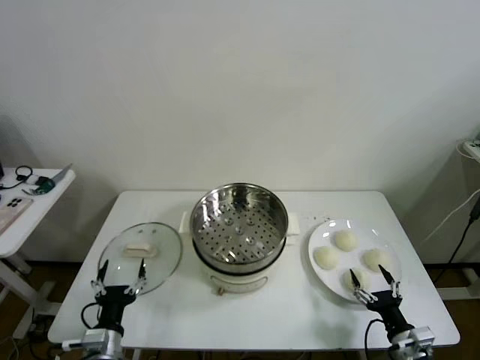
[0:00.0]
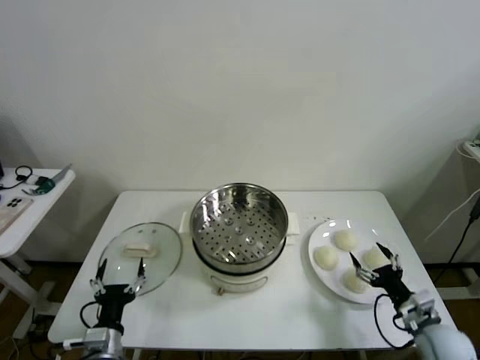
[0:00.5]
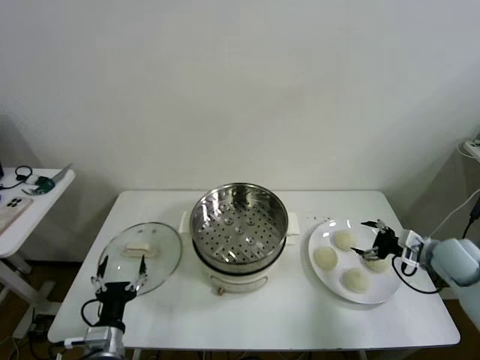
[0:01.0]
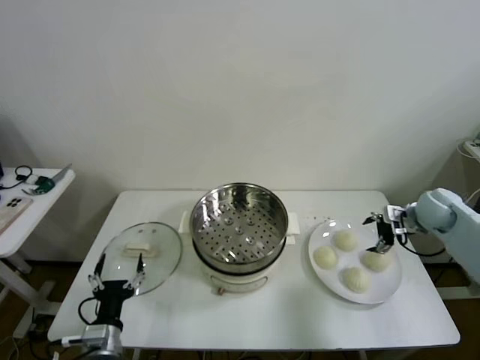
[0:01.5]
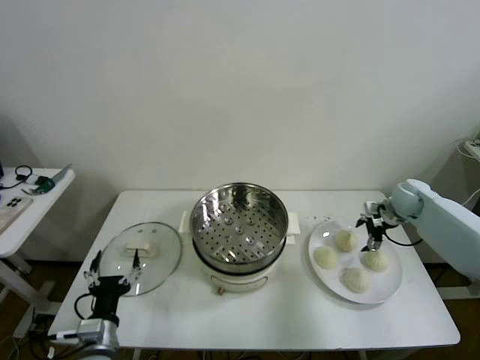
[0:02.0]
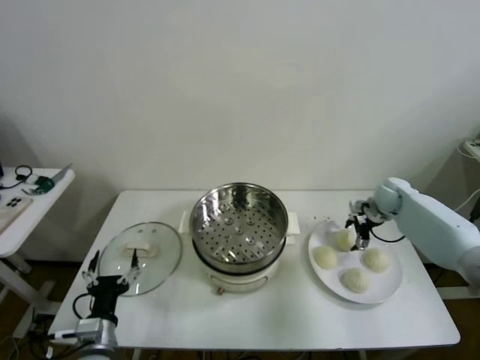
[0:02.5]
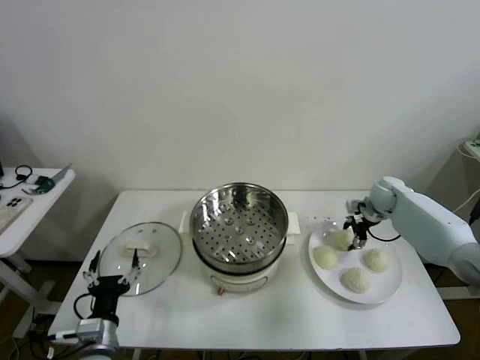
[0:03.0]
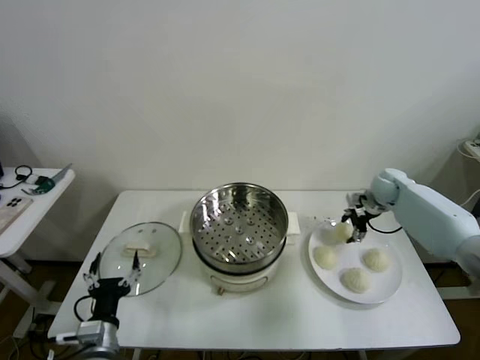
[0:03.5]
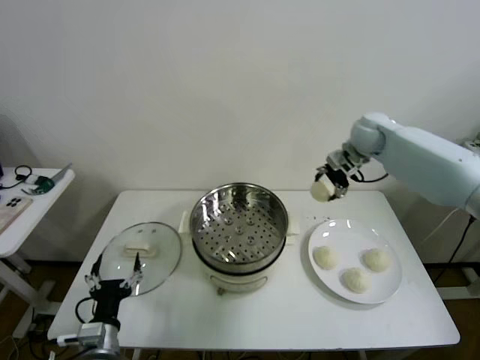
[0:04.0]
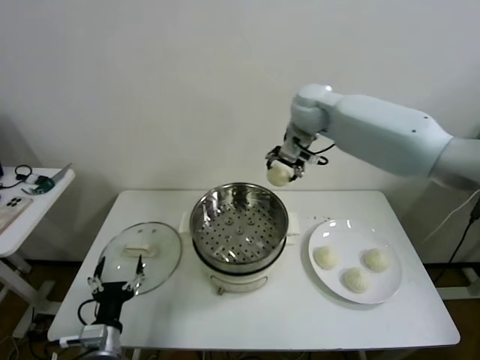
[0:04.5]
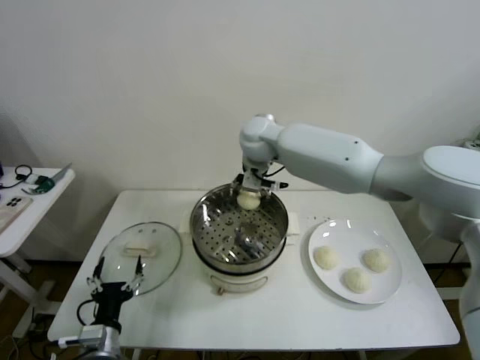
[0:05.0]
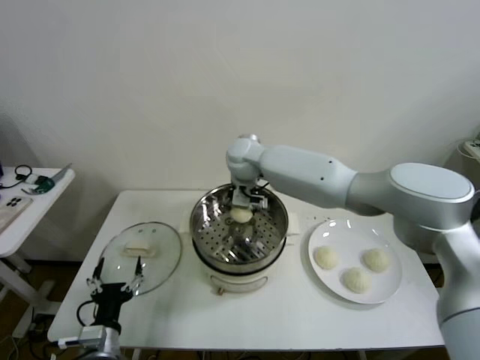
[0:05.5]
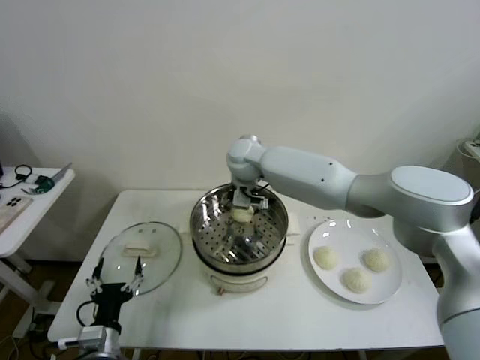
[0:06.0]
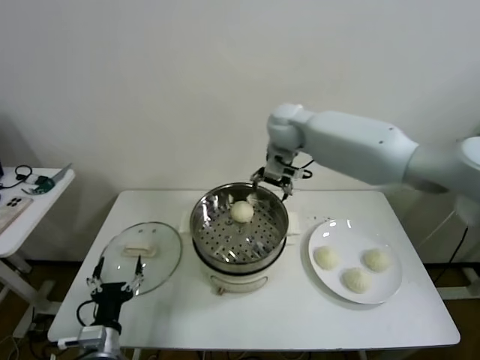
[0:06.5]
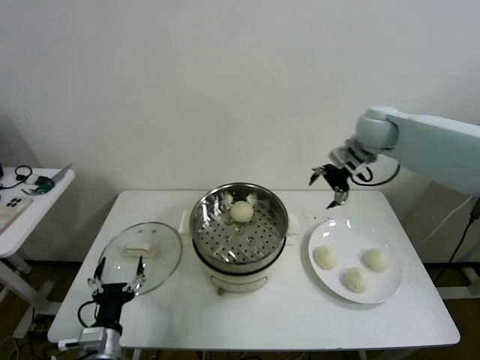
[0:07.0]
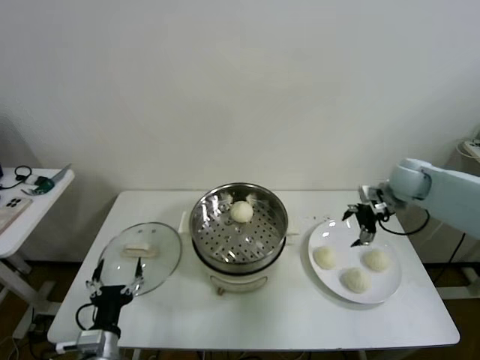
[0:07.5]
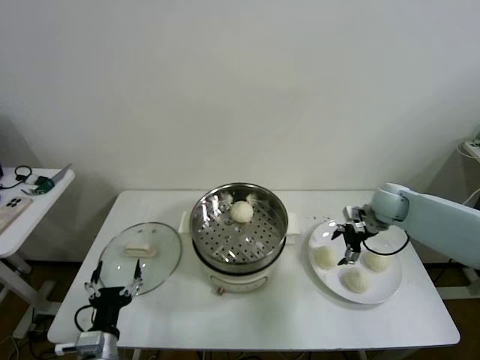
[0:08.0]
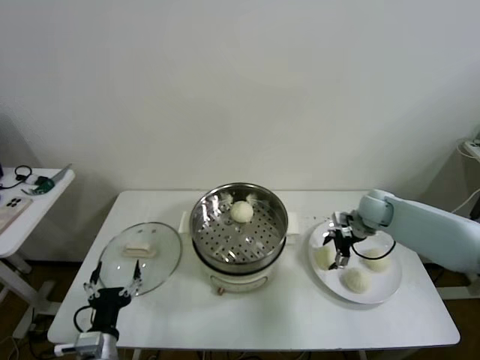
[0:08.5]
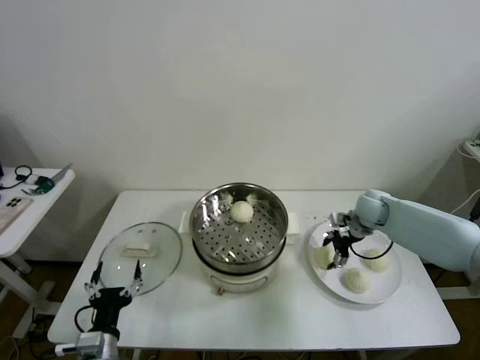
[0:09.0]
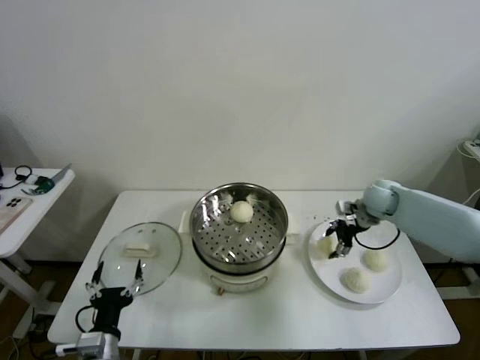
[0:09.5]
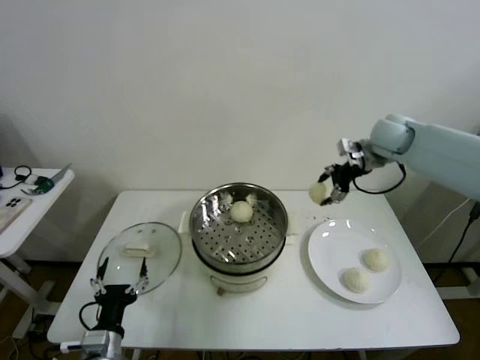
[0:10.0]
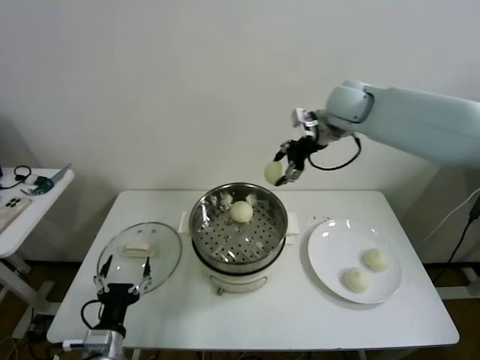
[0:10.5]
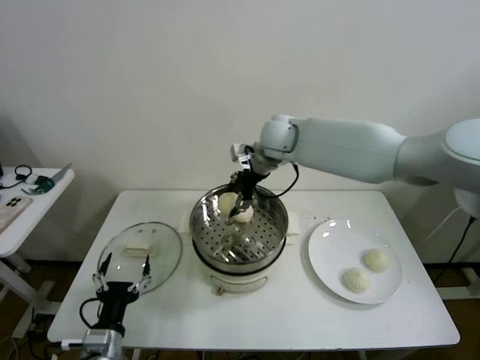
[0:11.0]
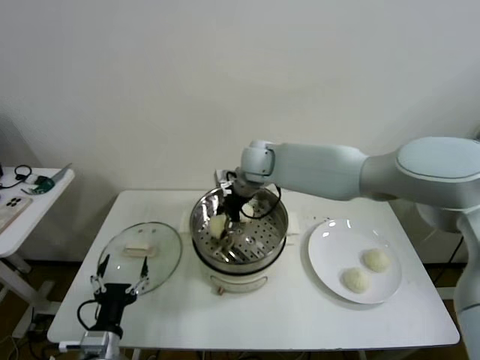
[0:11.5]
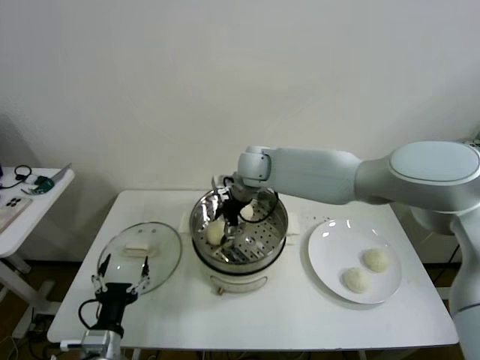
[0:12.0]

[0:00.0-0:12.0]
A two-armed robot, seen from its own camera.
Task of the whole recording: take steamed baozi put them in steamer then cover it.
Step, 0:00.0 to 0:03.0: Grasp the baozi in the plate with right gripper.
Step, 0:03.5 to 0:05.5: Place the baozi on the steamer with right gripper.
Step, 0:06.0 to 0:09.0: Grasp the baozi in the plate with right gripper.
0:02.0 to 0:04.0: The right gripper is displaced upward and to the left by approximately 25 cm, and closes.
0:04.0 to 0:06.0: The right gripper is displaced to the left by some 25 cm, and opens.
0:06.0 to 0:08.0: The right gripper moves to the right, some 35 cm.
0:08.0 to 0:10.0: The right gripper heads upward, covering about 20 cm, and closes its fingers.
0:10.0 to 0:12.0: The right gripper shifts roughly 30 cm to the left, and opens up.

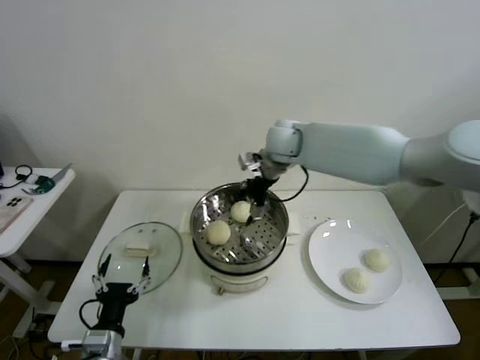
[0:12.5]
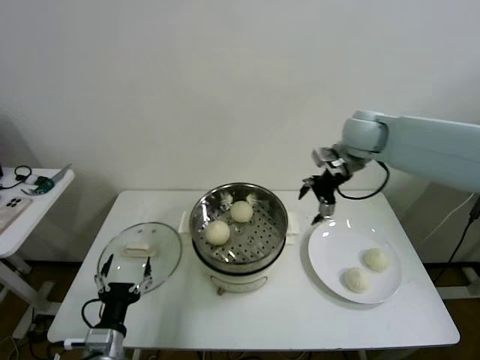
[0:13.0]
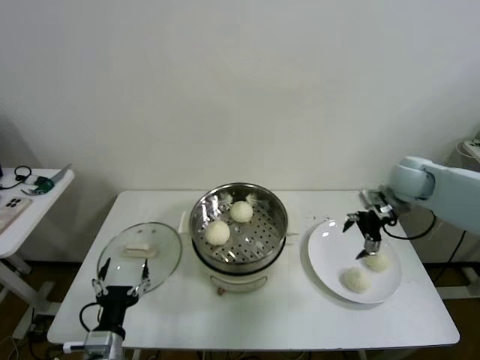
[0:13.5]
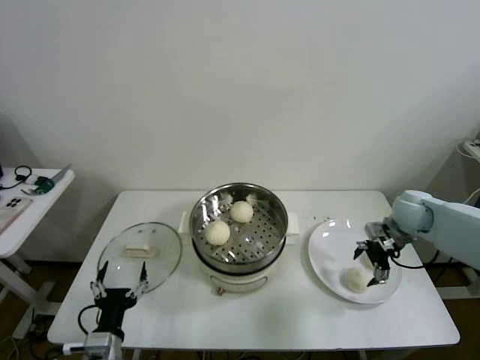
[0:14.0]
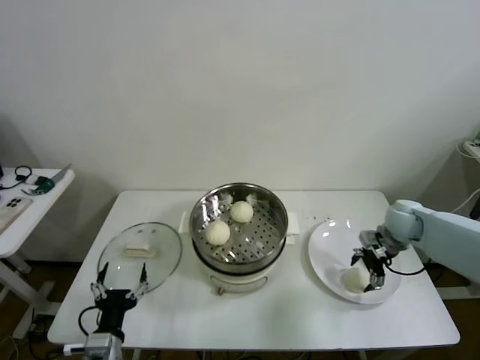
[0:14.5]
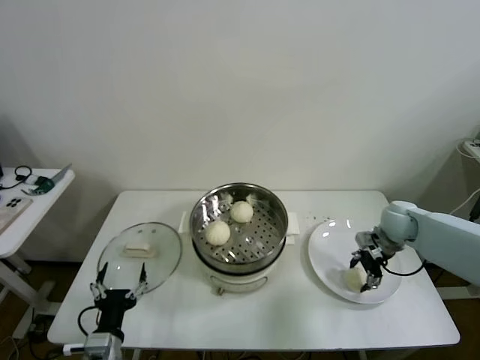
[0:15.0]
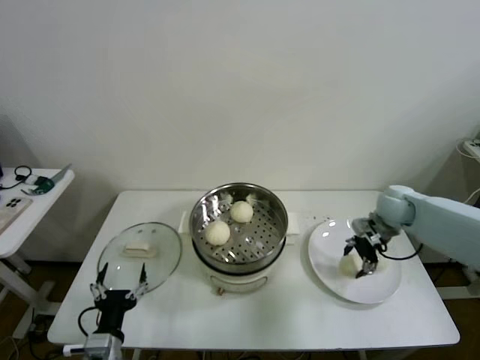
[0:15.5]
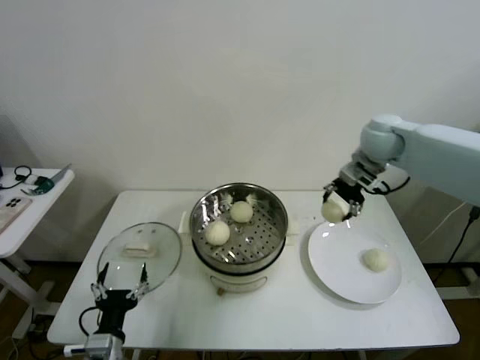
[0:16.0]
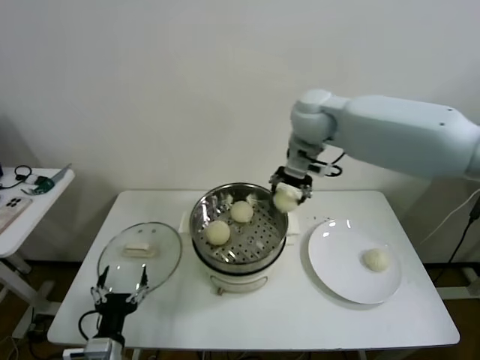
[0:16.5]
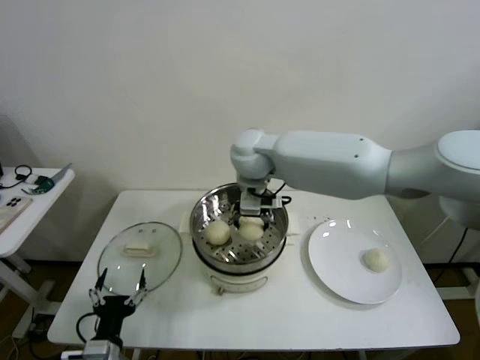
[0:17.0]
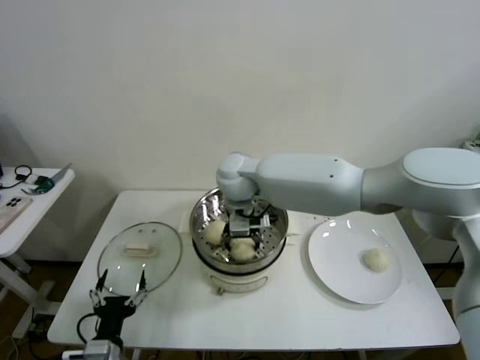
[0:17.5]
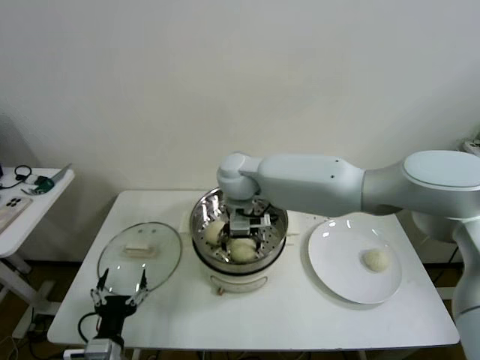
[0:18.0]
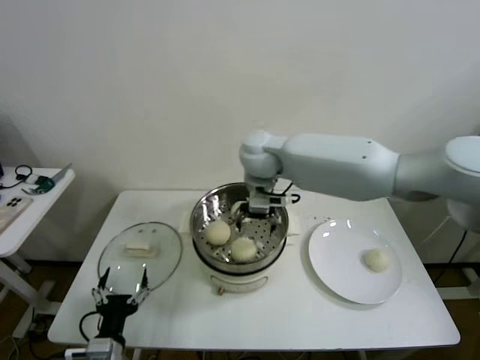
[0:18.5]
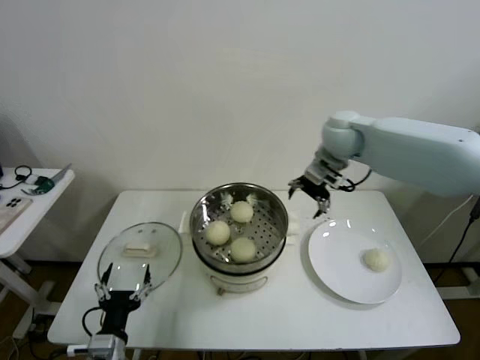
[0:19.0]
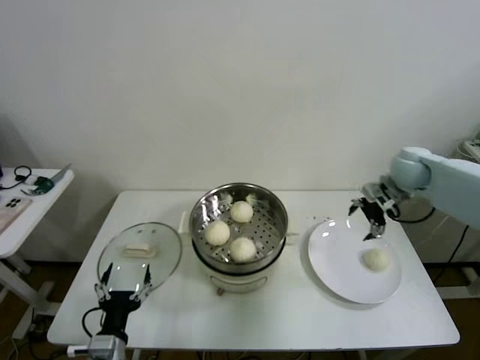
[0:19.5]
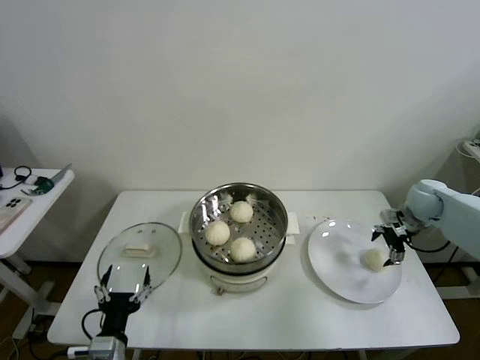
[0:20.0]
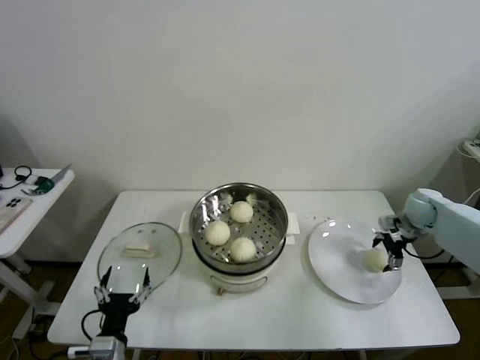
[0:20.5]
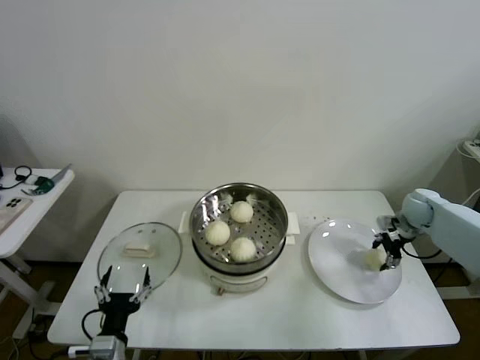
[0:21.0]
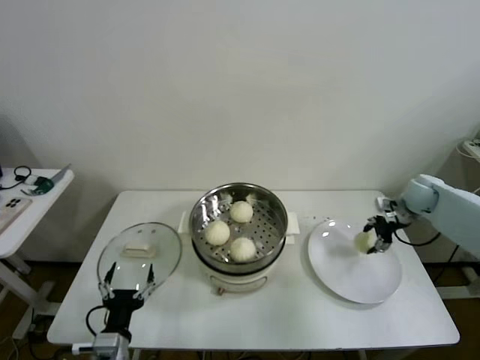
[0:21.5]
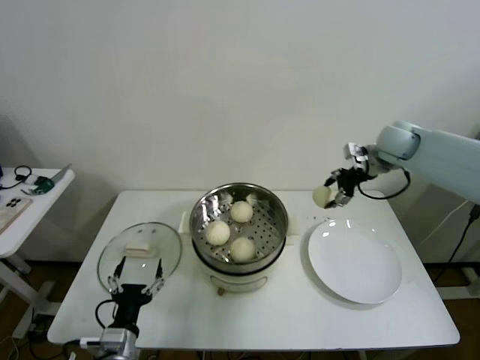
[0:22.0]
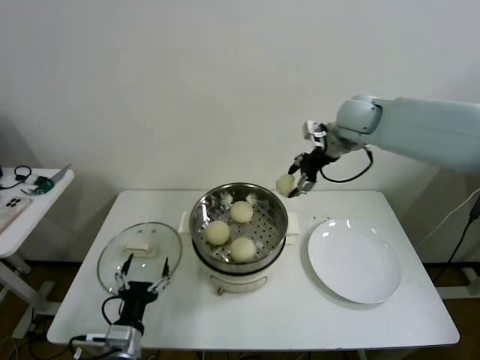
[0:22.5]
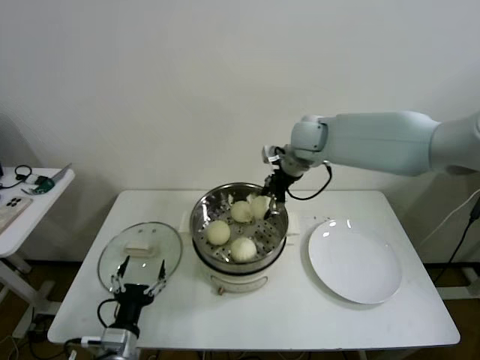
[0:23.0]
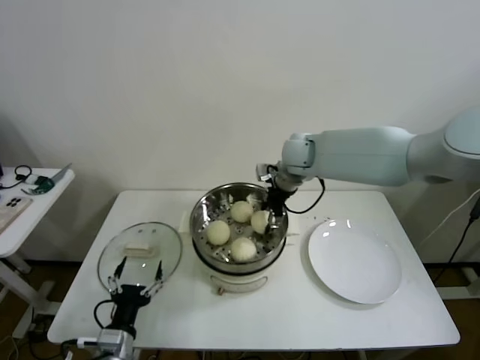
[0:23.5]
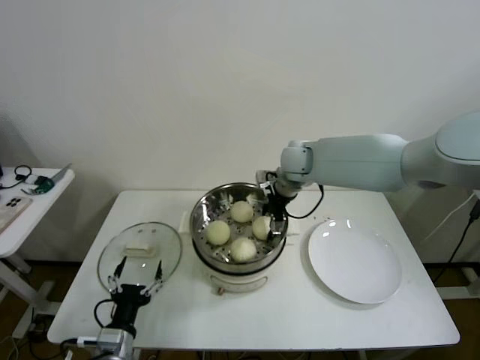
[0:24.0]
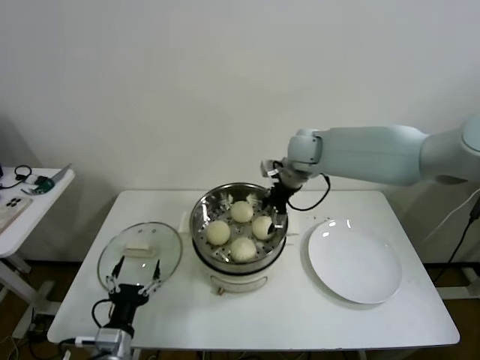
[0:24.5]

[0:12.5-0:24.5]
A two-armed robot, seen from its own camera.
Task of the whole recording: take steamed baozi put them in steamer then cover it.
Step, 0:12.5 to 0:14.5: Grasp the baozi in the plate with right gripper.
Step, 0:15.5 to 0:18.0: Place the baozi on the steamer with right gripper.
Step, 0:18.5 to 0:21.0: Grasp the baozi in the plate with right gripper.
Step, 0:21.5 to 0:24.0: Place the baozi on the steamer with right gripper.
0:12.5 to 0:14.5: The right gripper goes some 35 cm to the right and downward.
0:14.5 to 0:16.5: The right gripper is displaced to the left and upward by roughly 40 cm, and closes.
0:16.5 to 0:18.5: The right gripper shifts approximately 10 cm to the left and downward, and opens.
0:18.5 to 0:20.5: The right gripper is displaced to the right and downward by some 50 cm.
0:20.5 to 0:22.5: The right gripper travels upward and to the left by roughly 35 cm, and closes its fingers.
0:22.5 to 0:24.5: The right gripper heads to the left and downward, covering roughly 10 cm, and opens.

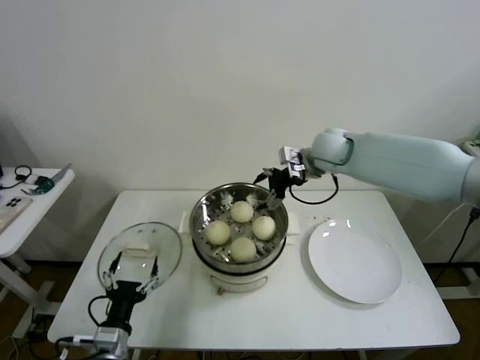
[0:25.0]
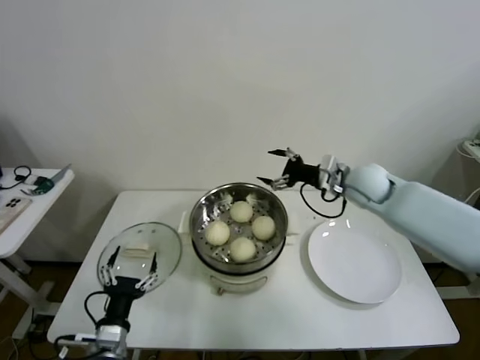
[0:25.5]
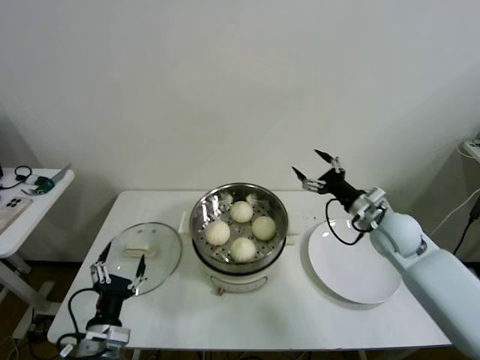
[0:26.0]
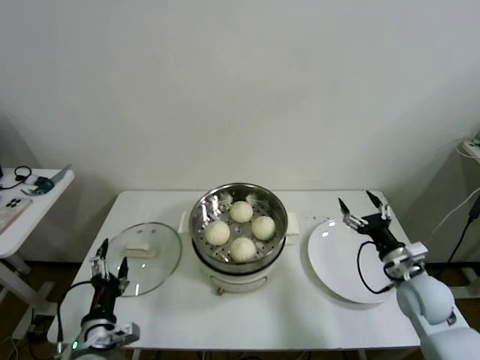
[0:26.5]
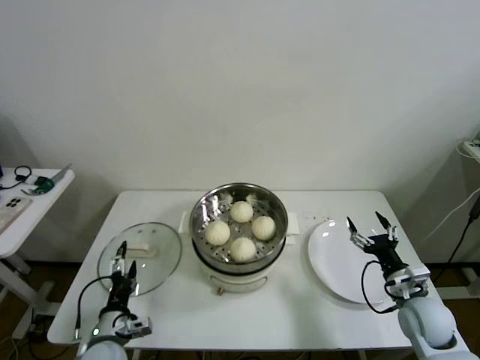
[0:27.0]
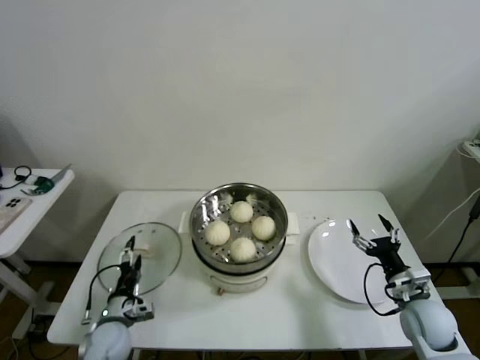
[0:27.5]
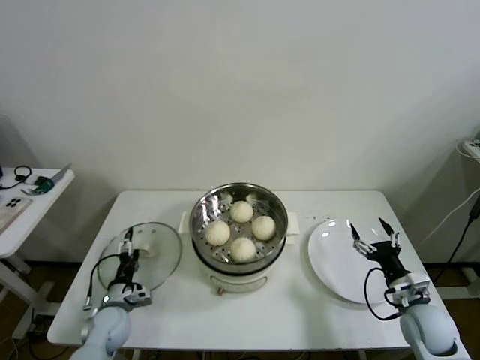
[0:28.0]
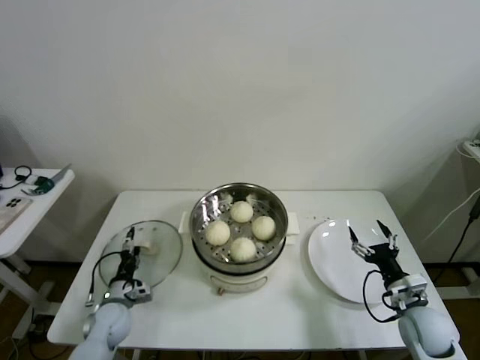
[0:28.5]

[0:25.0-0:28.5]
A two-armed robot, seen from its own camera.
Task of the whole recording: take steamed baozi put them in steamer then cover it.
0:25.0 to 0:27.0: The left gripper moves about 5 cm; the right gripper heads backward, downward and to the right, covering some 40 cm.
0:27.0 to 0:28.5: The left gripper goes approximately 15 cm forward and downward.
